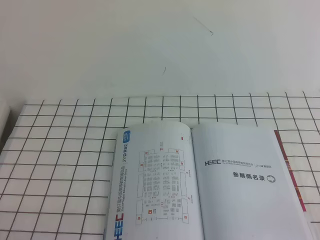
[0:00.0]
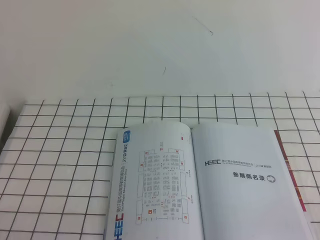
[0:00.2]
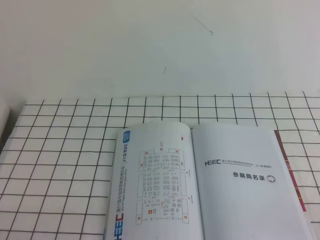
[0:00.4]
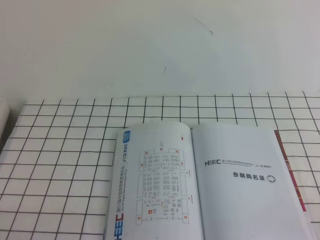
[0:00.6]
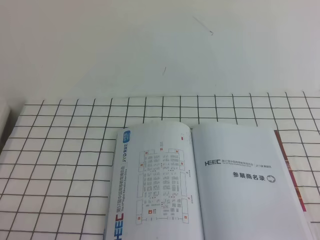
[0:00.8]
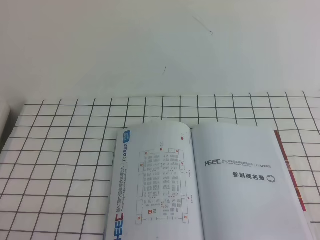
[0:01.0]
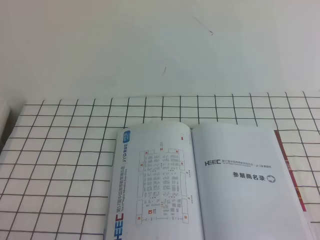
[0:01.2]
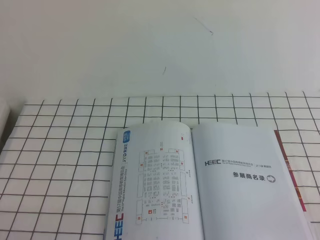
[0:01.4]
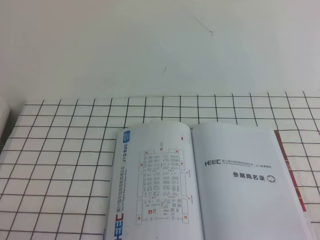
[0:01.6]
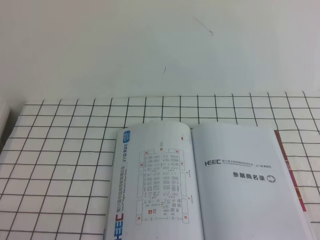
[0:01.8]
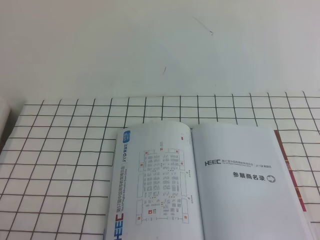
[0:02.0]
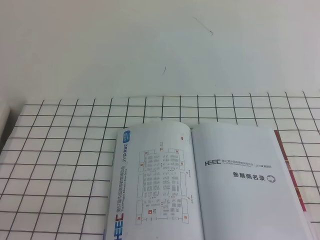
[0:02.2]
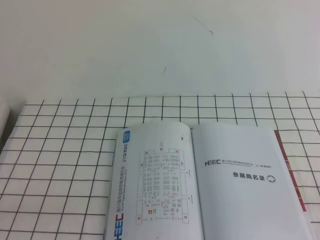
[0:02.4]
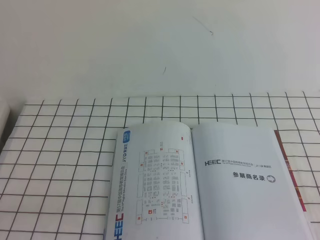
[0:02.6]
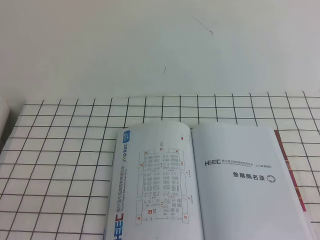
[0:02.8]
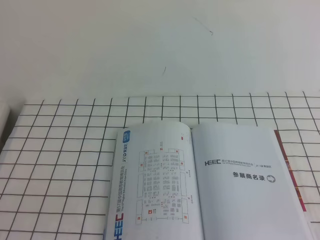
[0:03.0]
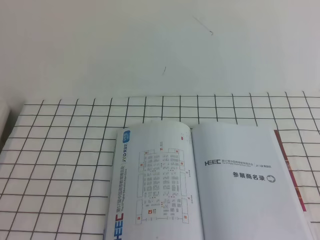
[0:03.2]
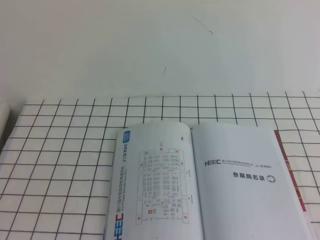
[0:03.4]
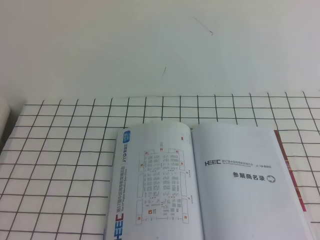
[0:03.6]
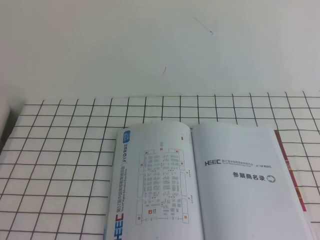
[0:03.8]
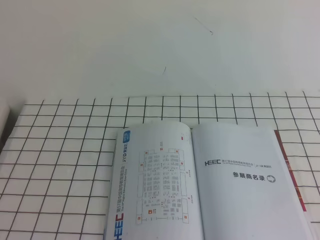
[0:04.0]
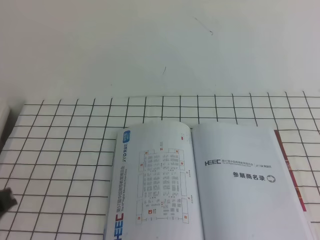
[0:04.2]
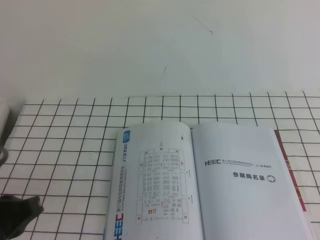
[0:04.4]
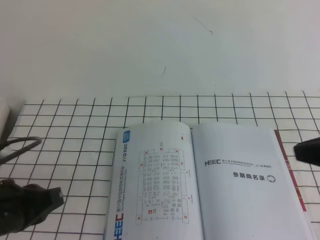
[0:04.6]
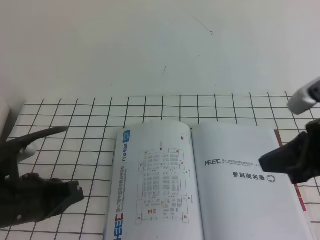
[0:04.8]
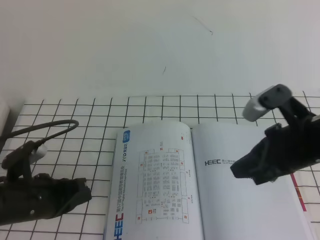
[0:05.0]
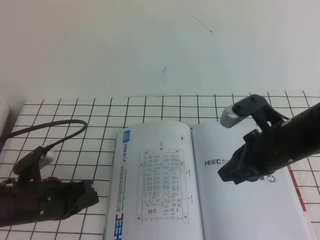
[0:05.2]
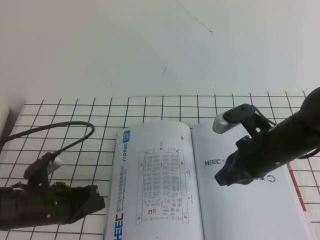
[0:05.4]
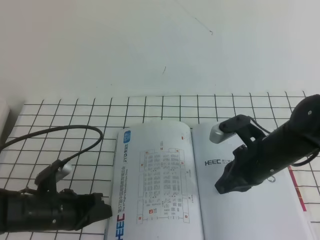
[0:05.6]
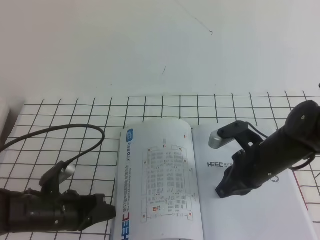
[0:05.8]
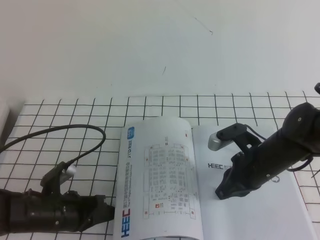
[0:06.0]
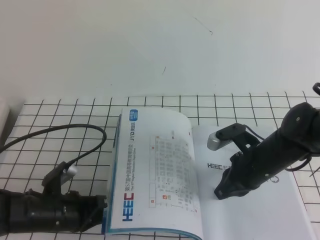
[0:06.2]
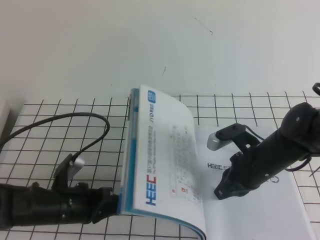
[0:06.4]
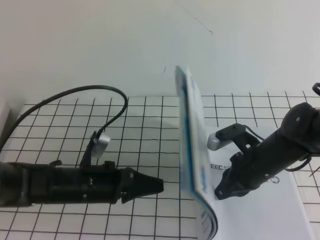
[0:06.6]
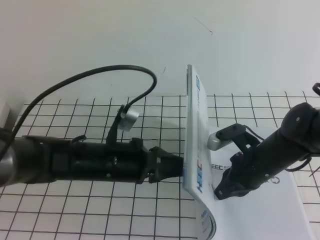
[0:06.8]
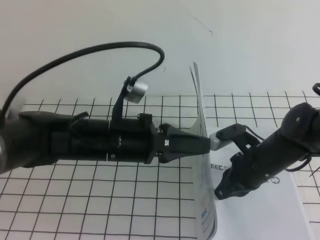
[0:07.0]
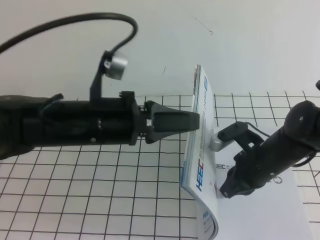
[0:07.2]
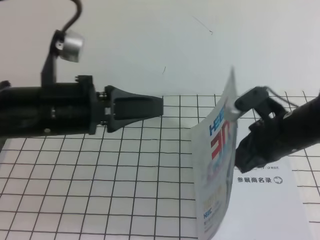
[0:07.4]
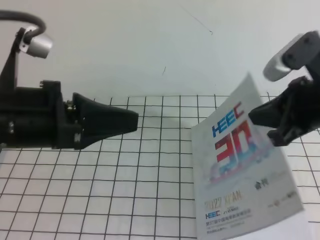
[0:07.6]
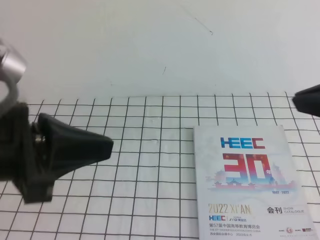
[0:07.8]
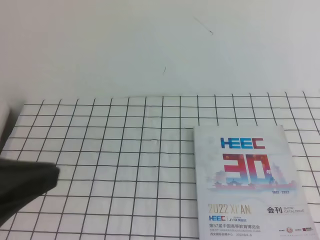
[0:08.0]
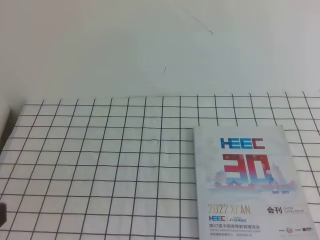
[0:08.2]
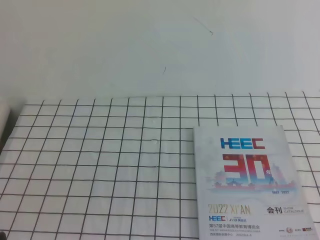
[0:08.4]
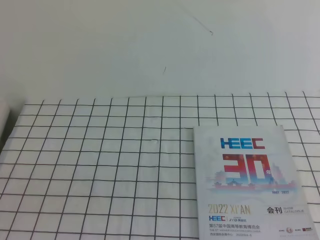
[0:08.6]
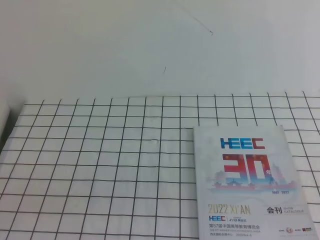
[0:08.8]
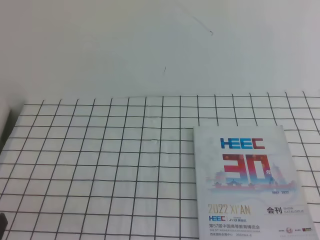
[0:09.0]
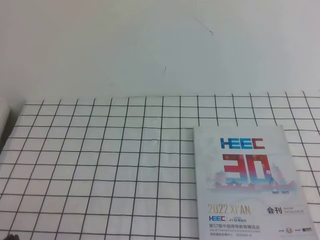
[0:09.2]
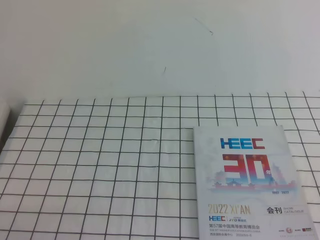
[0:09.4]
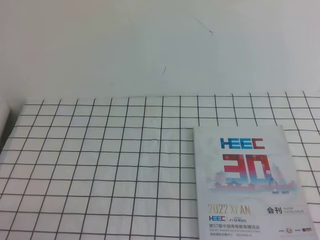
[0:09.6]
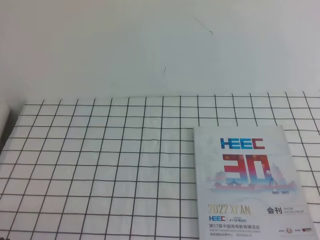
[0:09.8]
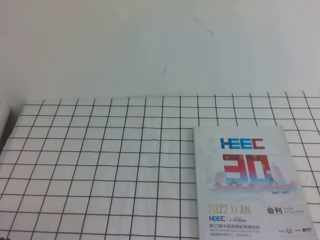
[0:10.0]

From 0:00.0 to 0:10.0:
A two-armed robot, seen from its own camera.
Task of the whole recording: on the white tablecloth, hold the book with one hand and close it with the other.
Step, from 0:00.0 to 0:04.8: Close the book.
From 0:00.0 to 0:01.4: The two grippers keep their place.
From 0:04.2 to 0:05.8: The right gripper is displaced downward, forward and to the left by some 30 cm. Meanwhile the left gripper is displaced downward and forward by some 25 cm.
From 0:05.8 to 0:07.2: The left gripper heads upward and to the right, covering about 20 cm.
From 0:07.2 to 0:08.6: The right gripper goes roughly 35 cm backward, upward and to the right. Meanwhile the left gripper moves backward and to the left, some 25 cm.
